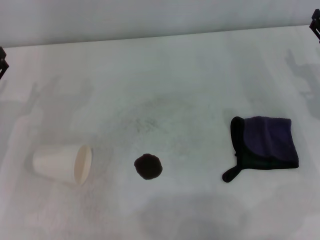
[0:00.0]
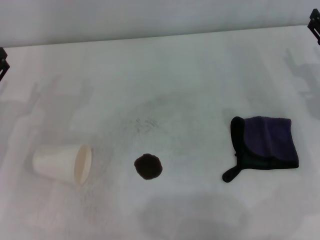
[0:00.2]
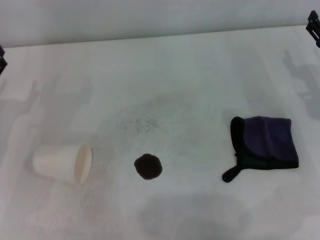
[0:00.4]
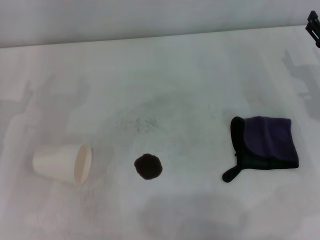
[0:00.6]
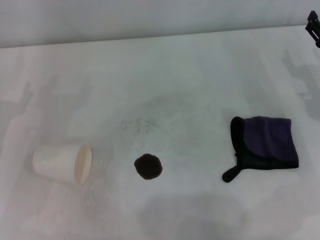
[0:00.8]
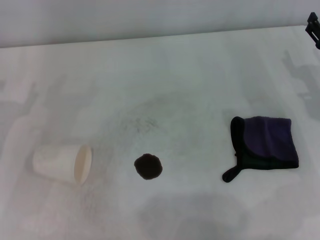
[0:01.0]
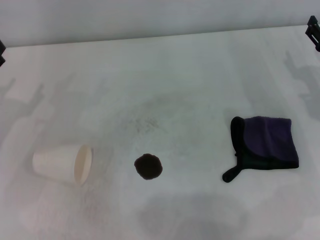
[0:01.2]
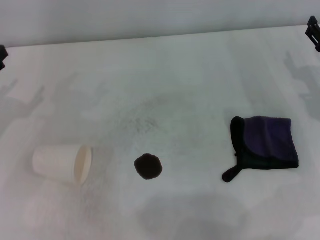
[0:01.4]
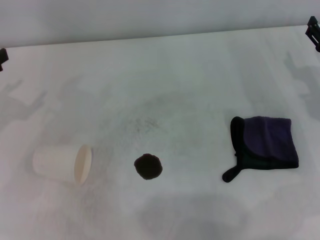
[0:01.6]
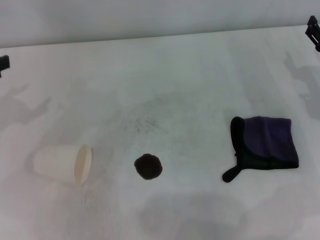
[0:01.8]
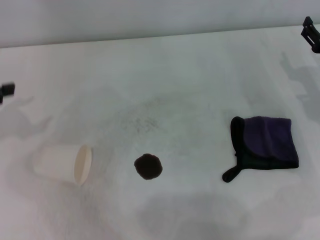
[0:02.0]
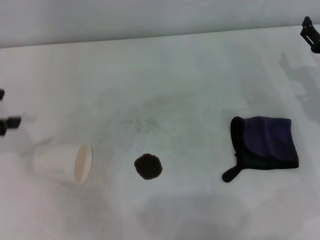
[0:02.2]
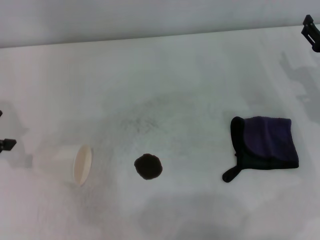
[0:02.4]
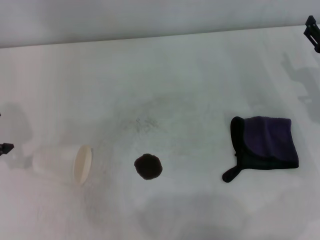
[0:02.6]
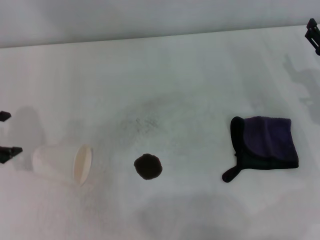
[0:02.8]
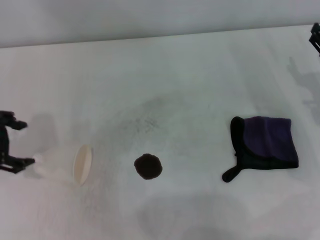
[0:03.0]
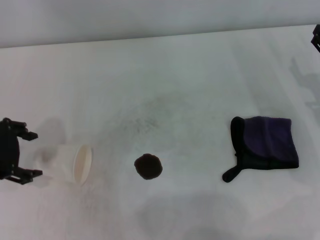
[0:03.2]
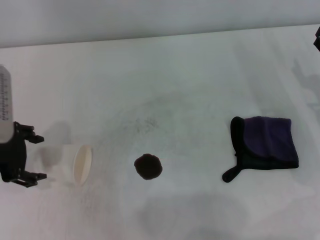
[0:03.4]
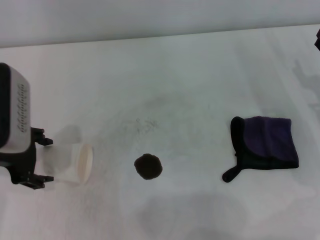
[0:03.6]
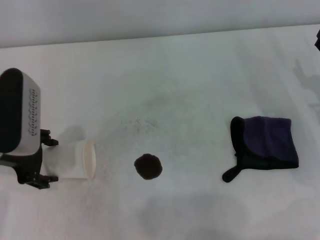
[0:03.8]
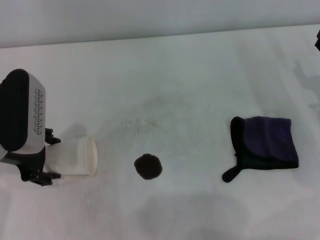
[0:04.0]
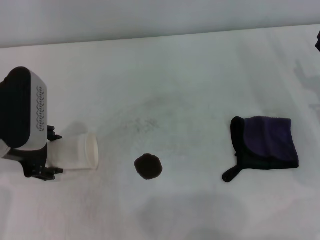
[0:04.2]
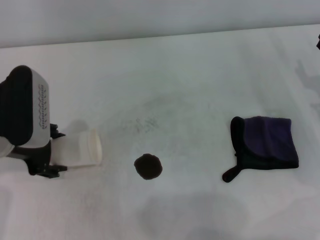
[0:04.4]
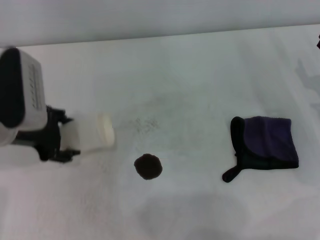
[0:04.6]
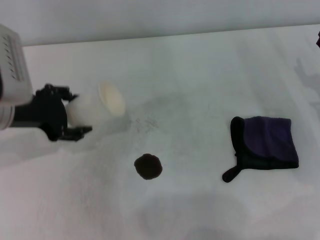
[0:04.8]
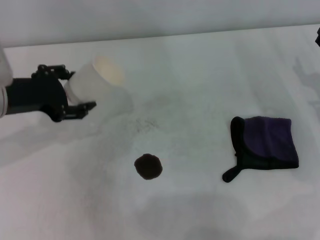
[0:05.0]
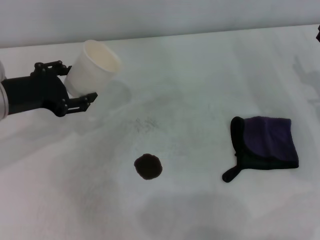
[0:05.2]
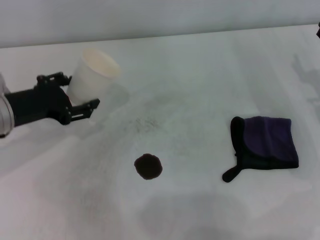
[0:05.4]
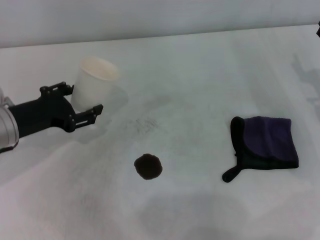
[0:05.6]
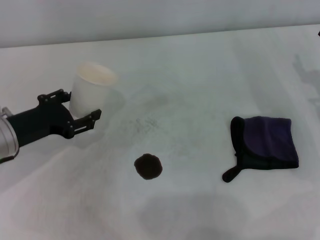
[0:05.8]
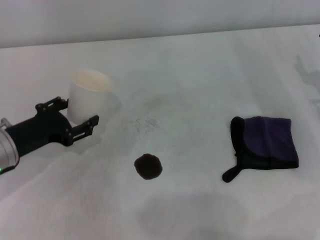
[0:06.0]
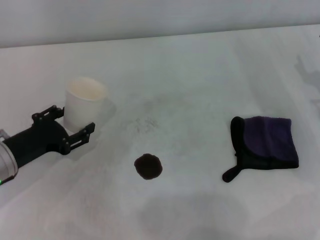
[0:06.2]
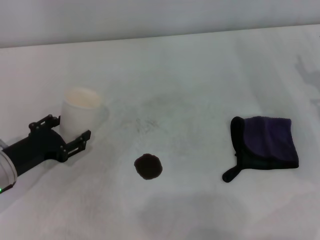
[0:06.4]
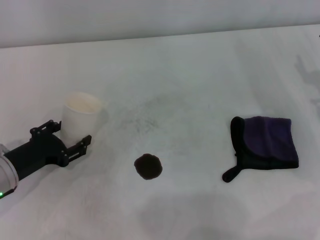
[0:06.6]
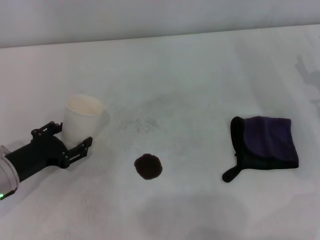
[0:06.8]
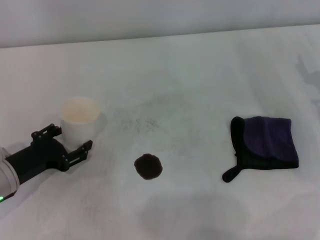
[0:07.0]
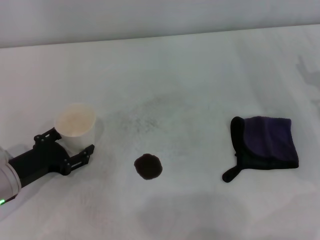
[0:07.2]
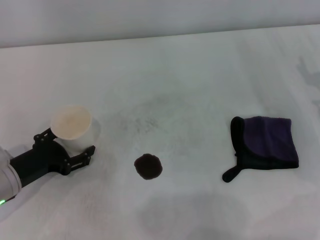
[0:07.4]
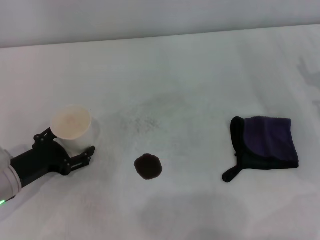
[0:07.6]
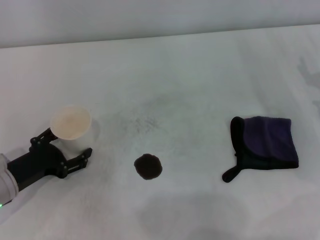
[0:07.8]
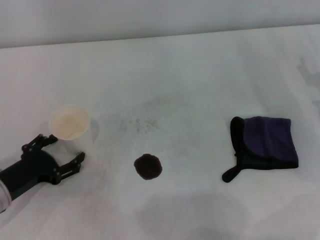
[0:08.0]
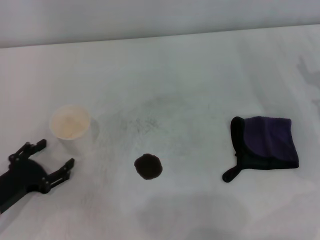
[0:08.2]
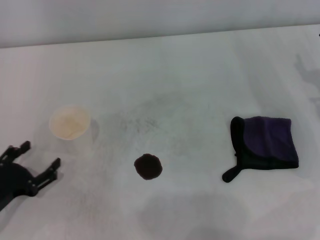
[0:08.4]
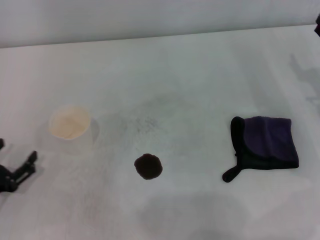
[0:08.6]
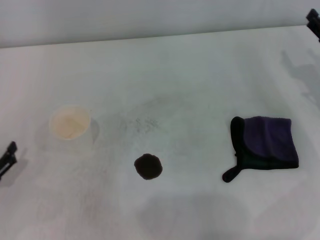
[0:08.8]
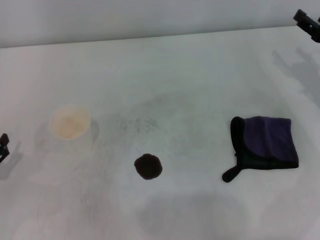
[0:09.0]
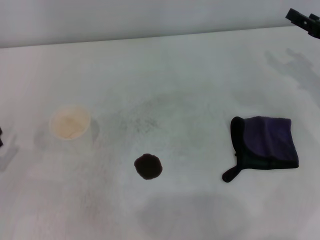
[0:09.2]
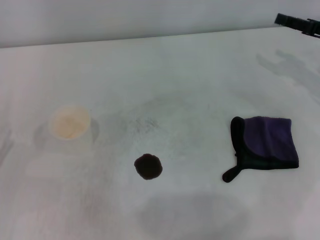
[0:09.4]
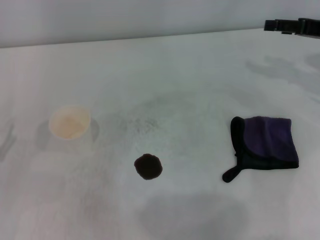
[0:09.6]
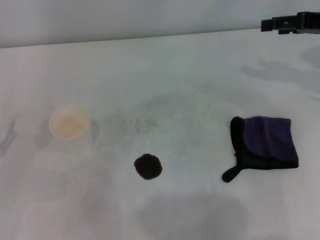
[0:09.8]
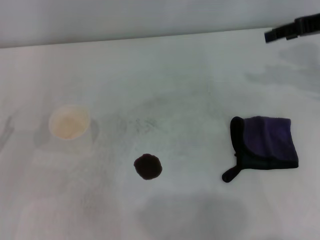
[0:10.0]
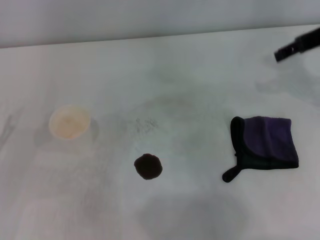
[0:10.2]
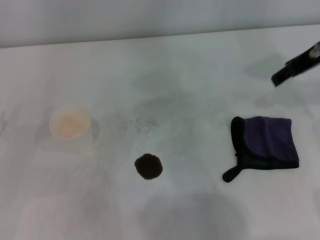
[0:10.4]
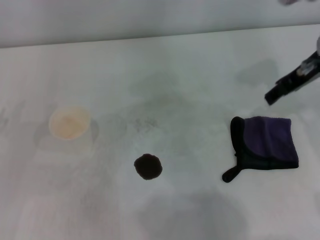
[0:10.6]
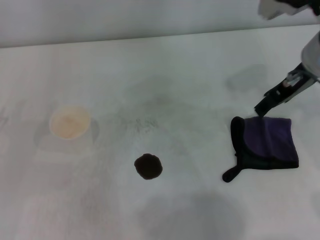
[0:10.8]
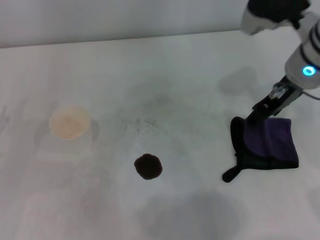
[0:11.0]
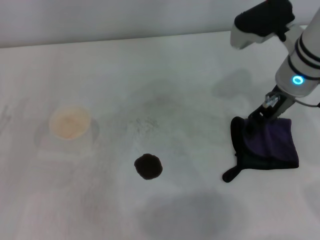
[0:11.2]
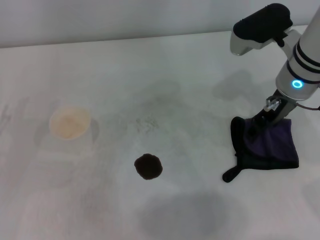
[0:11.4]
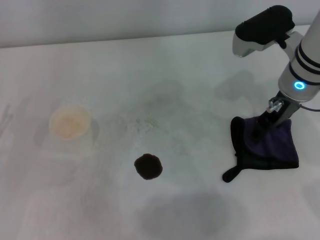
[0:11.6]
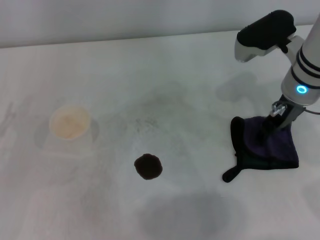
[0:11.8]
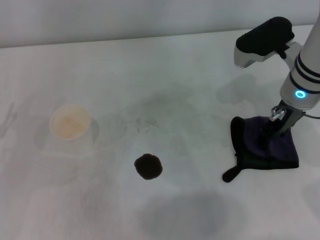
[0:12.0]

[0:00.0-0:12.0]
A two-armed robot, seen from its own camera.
Step, 0:00.0 to 0:04.2: Grasp the paper cup with the left gripper.
Step, 0:04.4 to 0:07.8: Stand the paper cup upright with the left gripper.
0:01.6 to 0:03.0: The left gripper moves to the right, roughly 5 cm.
0:03.0 to 0:04.4: The left gripper travels to the right and downward by about 10 cm, and closes up.
0:04.4 to 0:06.0: The left gripper goes about 5 cm downward.
0:06.0 to 0:07.6: The left gripper shifts by some 5 cm, and opens.
0:07.6 to 0:09.0: The left gripper shifts some 10 cm to the left and backward.
0:09.0 to 0:10.4: The right gripper shifts some 15 cm upward and to the left.
0:10.4 to 0:12.0: The right gripper is displaced downward by approximately 10 cm.

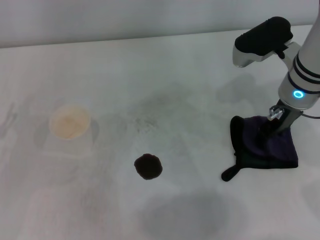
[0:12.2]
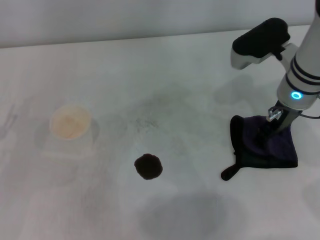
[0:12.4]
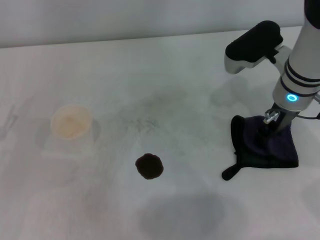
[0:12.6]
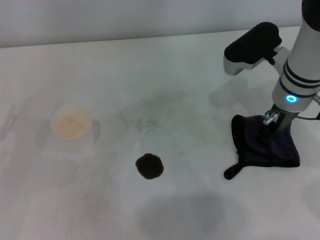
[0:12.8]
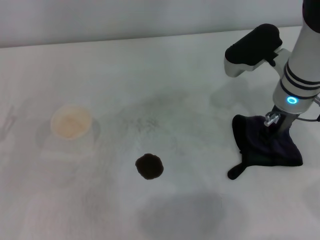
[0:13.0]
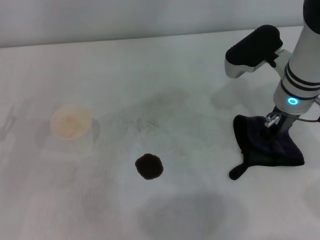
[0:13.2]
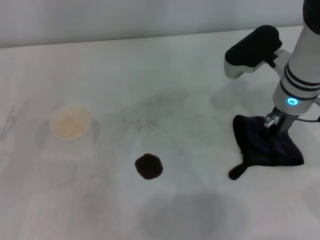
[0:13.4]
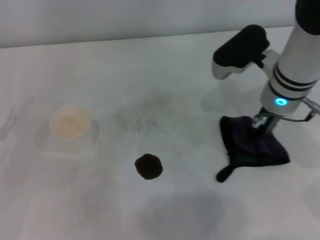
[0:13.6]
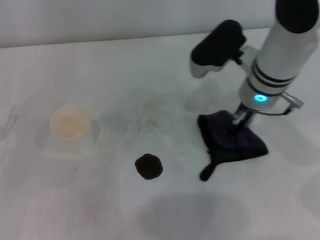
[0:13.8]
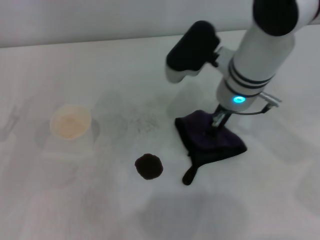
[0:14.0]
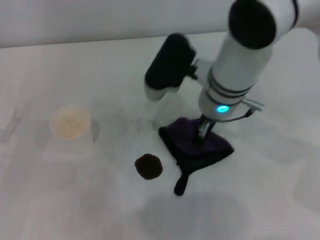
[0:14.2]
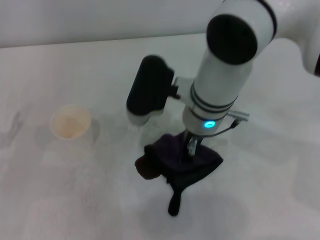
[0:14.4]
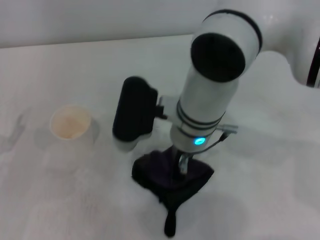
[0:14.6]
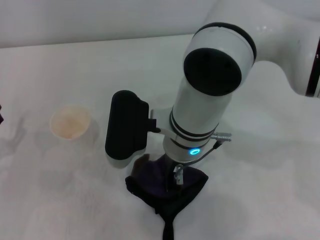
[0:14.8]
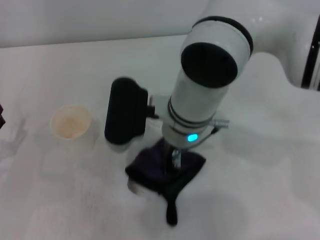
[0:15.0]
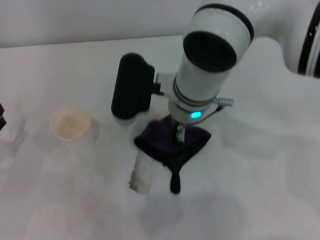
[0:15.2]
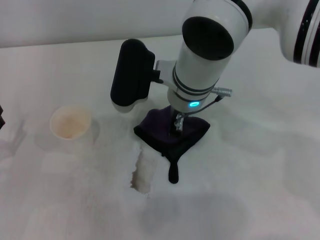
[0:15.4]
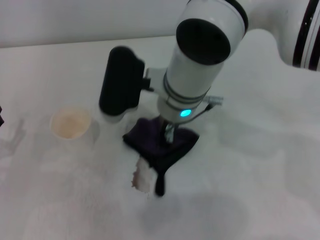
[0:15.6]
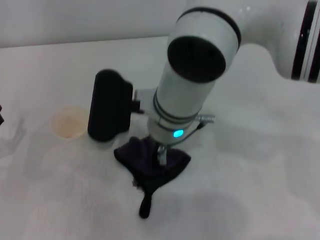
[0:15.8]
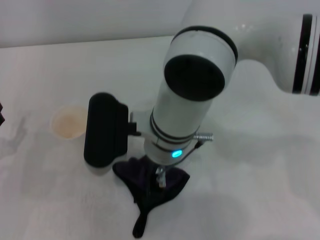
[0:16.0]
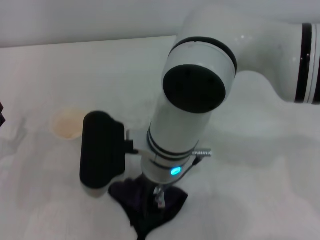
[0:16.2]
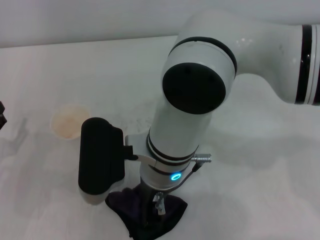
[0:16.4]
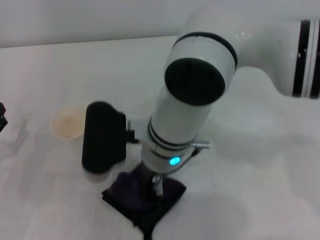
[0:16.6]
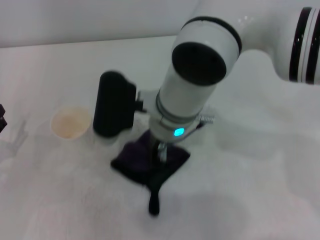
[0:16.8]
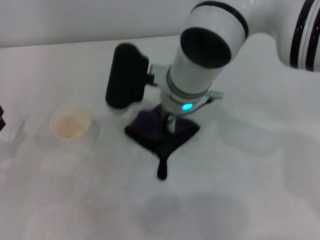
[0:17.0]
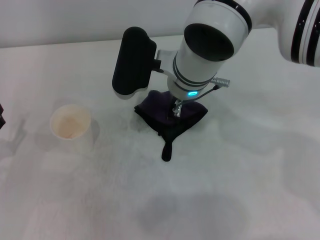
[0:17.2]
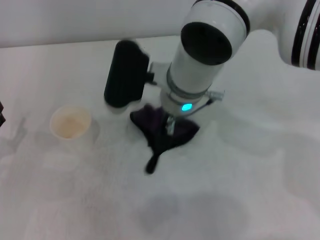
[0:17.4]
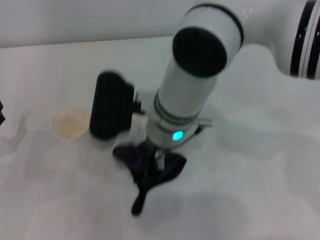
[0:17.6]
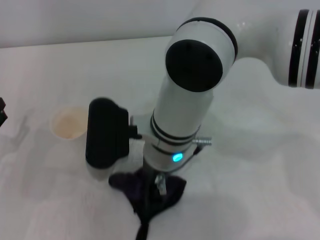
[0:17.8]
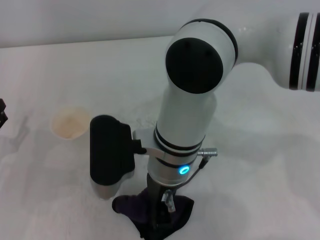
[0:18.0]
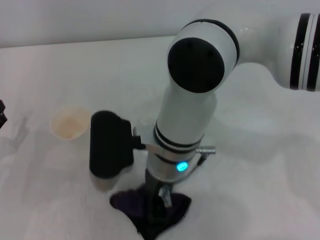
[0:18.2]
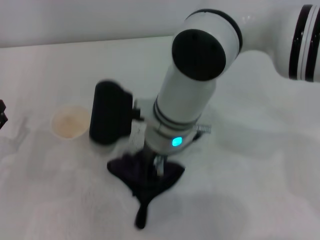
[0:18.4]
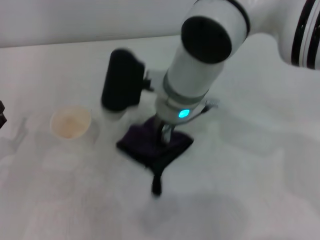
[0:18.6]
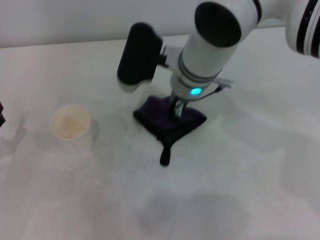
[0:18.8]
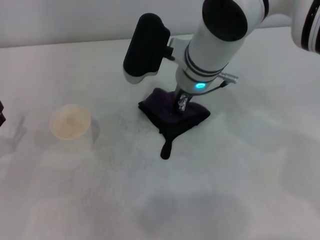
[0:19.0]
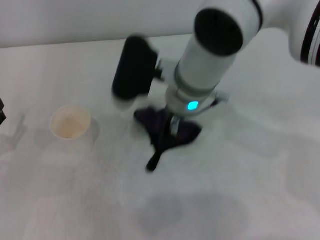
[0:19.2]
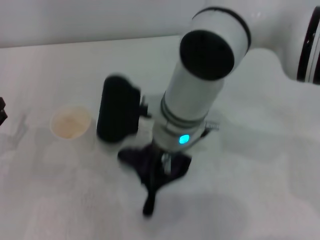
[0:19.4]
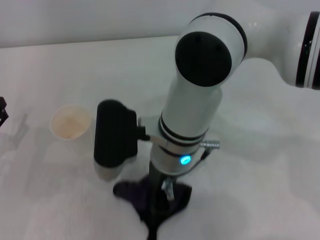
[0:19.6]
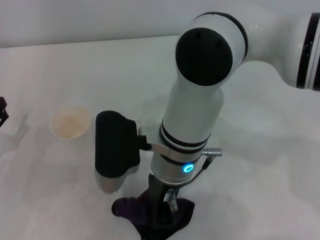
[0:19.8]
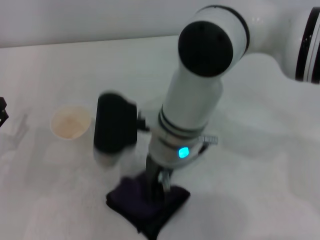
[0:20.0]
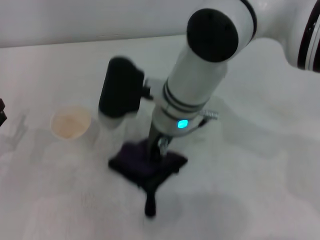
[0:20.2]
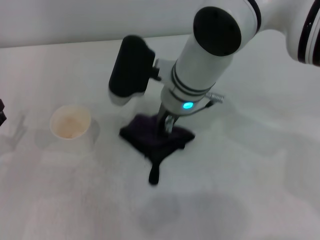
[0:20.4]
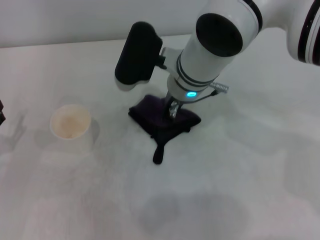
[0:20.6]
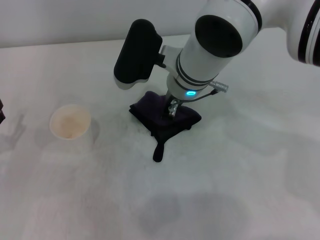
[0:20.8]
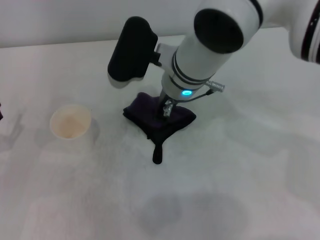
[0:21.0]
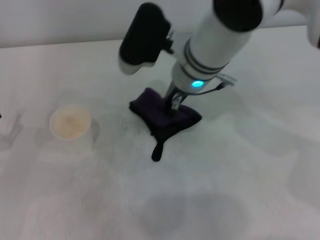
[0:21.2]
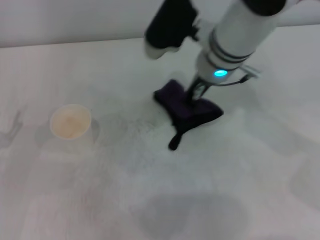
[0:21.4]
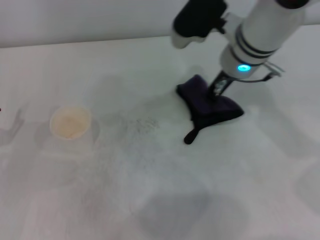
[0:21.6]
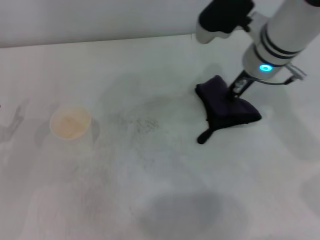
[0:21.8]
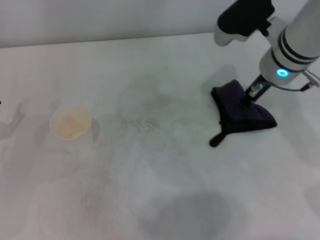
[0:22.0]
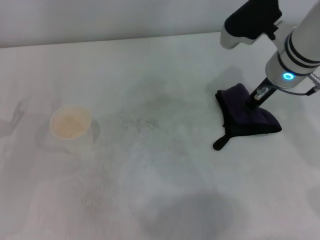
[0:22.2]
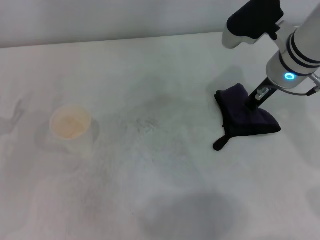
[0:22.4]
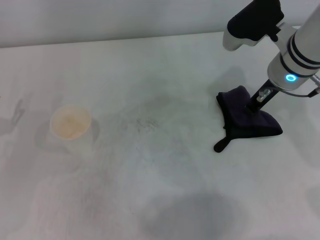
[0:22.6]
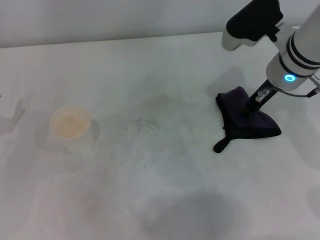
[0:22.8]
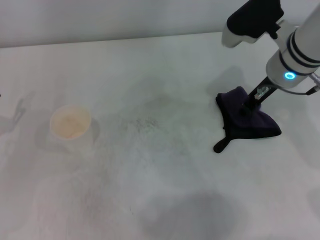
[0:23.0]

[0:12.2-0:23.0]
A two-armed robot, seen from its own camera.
Step, 0:13.6 to 0:21.2: Wipe the stains off the table with the right gripper.
Step, 0:21.6 to 0:23.0: Place the rag on the table with the right gripper.
0:12.2 to 0:13.8: The right gripper heads to the left, covering some 5 cm, and closes its fingers.
0:13.8 to 0:15.2: The right gripper moves to the left, roughly 10 cm.
0:15.2 to 0:16.8: The right gripper goes backward and returns, some 10 cm each way.
0:16.8 to 0:18.4: The right gripper moves some 5 cm forward and comes back.
0:18.4 to 0:20.0: The right gripper moves roughly 5 cm forward and comes back.
0:20.0 to 0:21.4: The right gripper moves forward and to the right, approximately 10 cm.
0:21.4 to 0:23.0: The right gripper heads to the right, covering approximately 10 cm.
